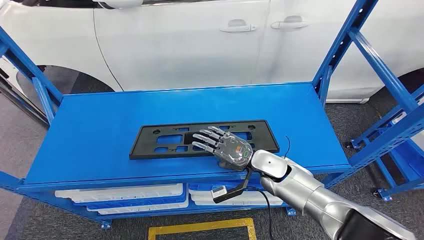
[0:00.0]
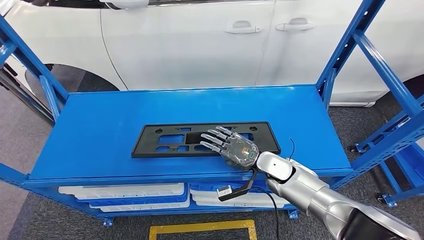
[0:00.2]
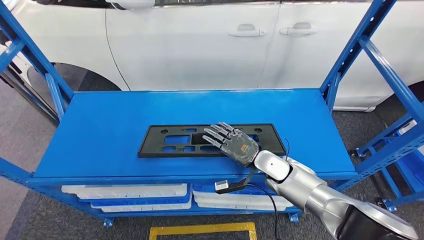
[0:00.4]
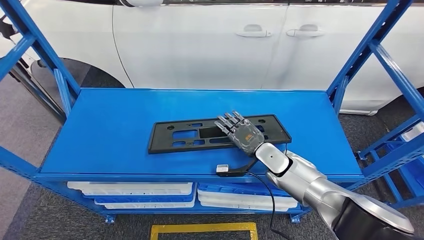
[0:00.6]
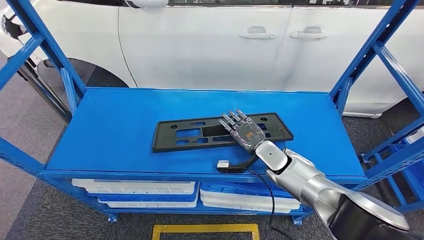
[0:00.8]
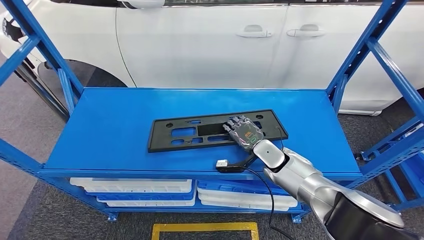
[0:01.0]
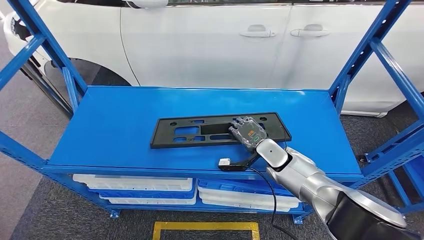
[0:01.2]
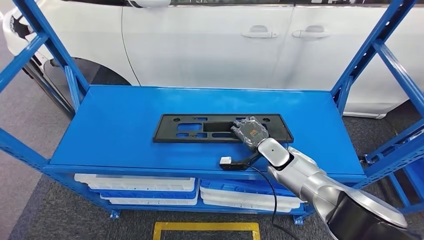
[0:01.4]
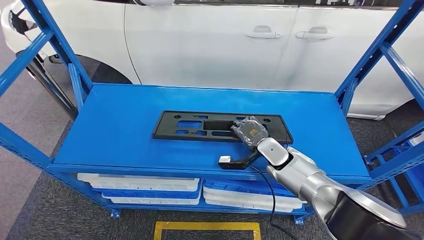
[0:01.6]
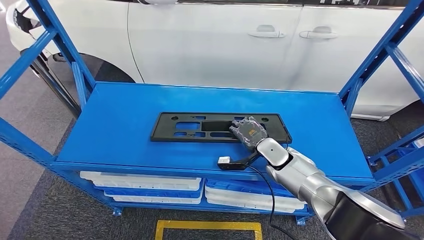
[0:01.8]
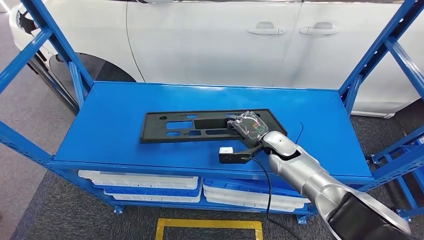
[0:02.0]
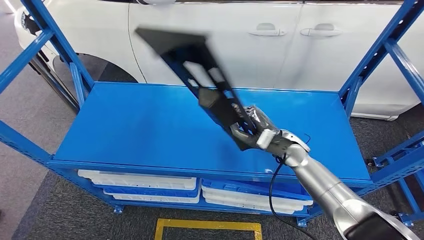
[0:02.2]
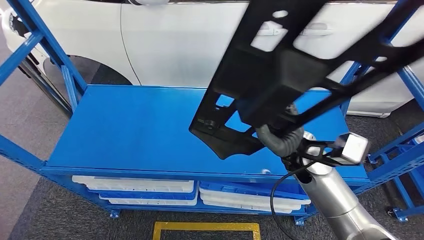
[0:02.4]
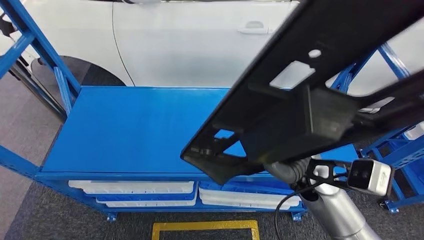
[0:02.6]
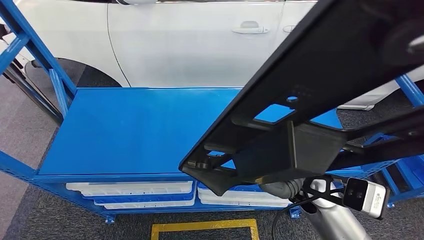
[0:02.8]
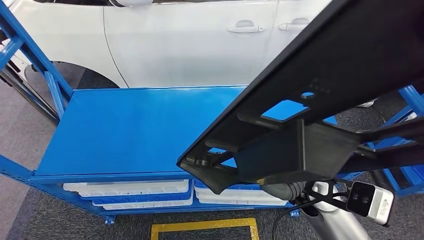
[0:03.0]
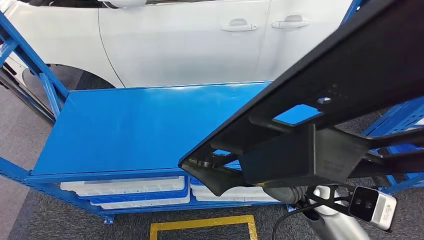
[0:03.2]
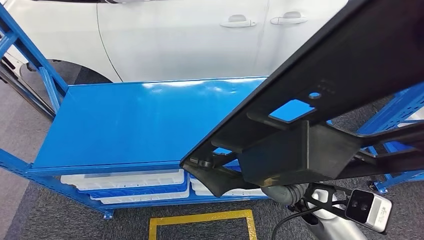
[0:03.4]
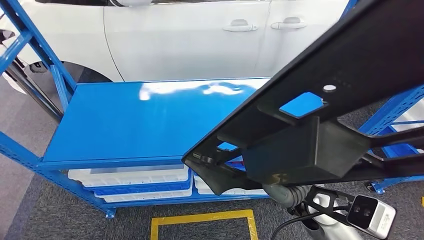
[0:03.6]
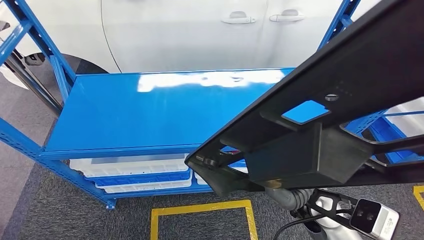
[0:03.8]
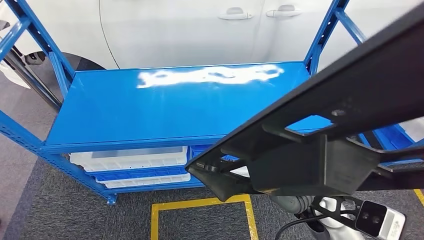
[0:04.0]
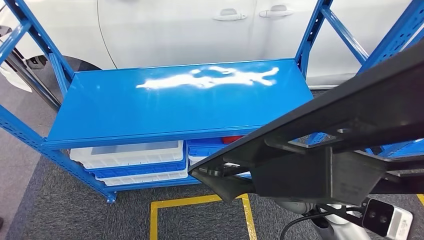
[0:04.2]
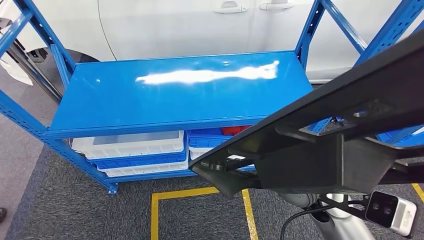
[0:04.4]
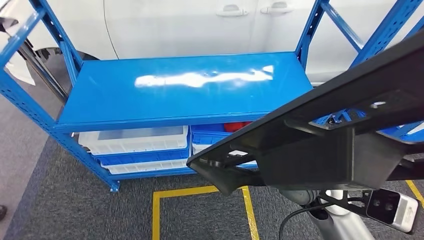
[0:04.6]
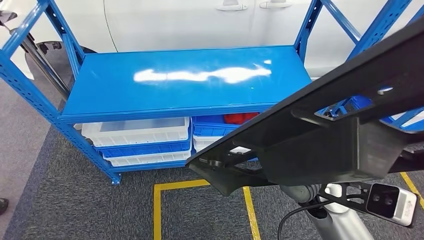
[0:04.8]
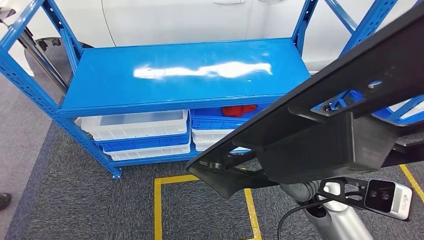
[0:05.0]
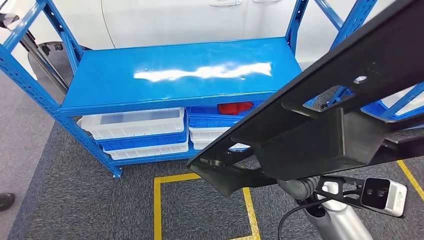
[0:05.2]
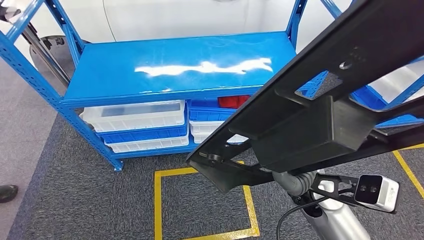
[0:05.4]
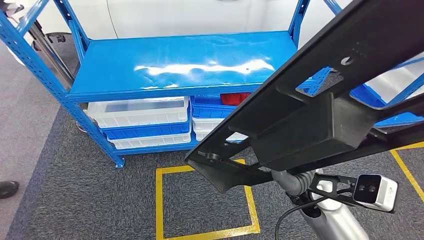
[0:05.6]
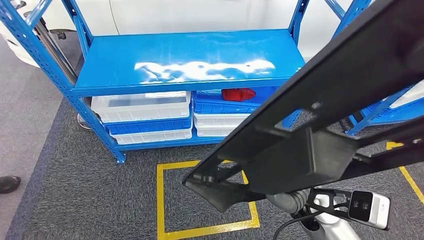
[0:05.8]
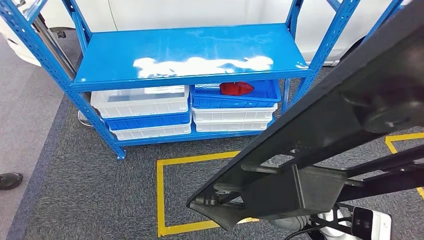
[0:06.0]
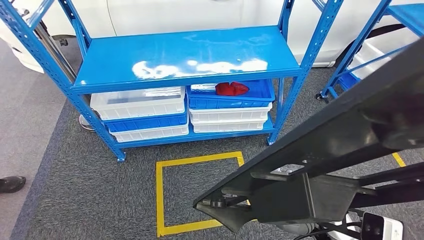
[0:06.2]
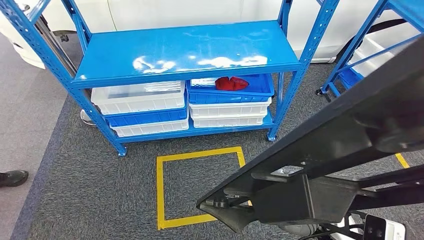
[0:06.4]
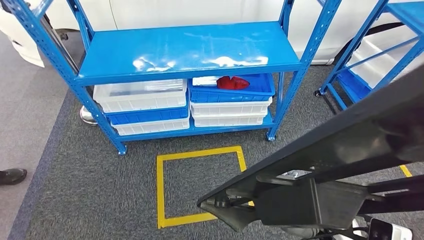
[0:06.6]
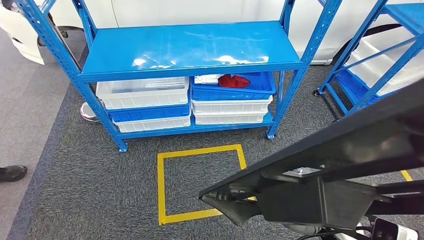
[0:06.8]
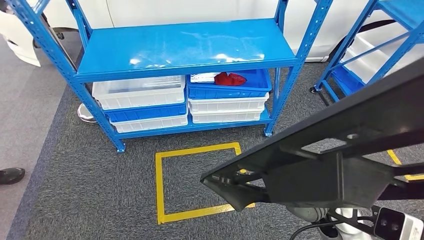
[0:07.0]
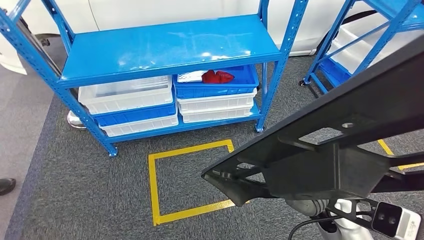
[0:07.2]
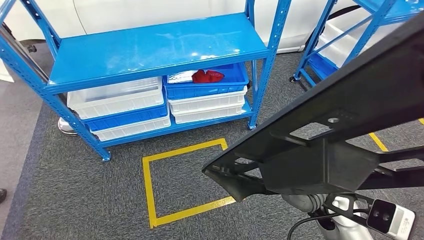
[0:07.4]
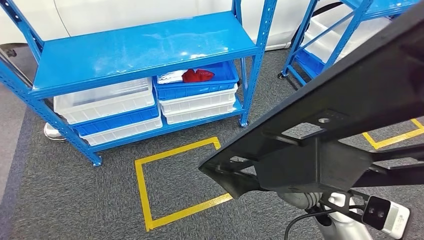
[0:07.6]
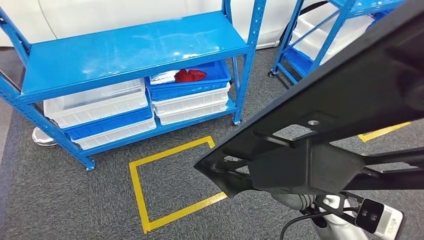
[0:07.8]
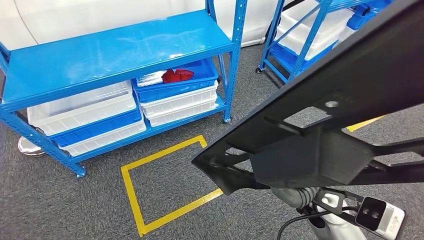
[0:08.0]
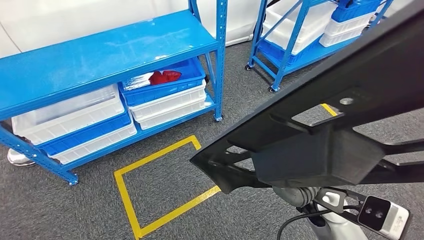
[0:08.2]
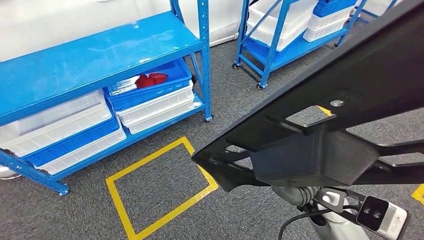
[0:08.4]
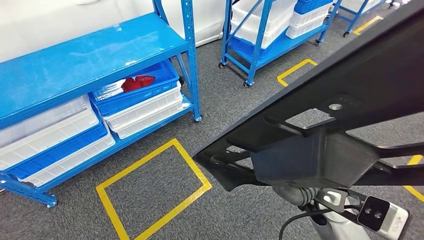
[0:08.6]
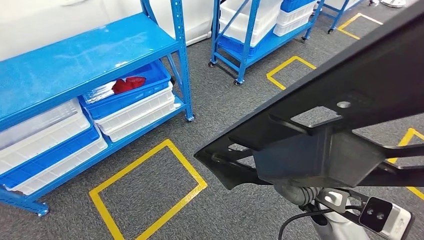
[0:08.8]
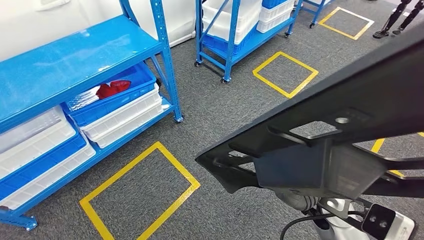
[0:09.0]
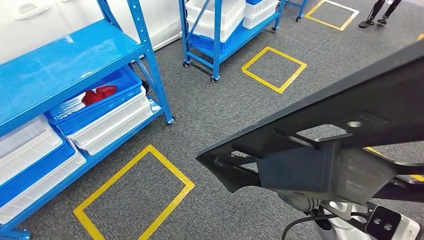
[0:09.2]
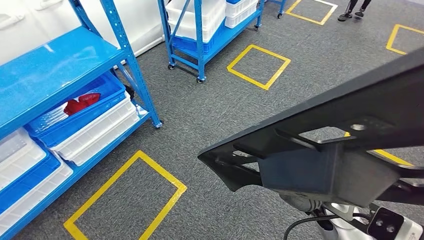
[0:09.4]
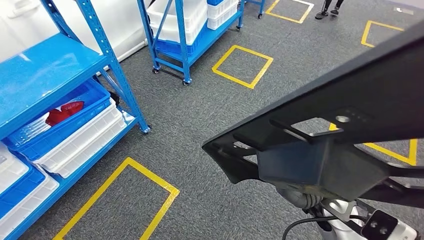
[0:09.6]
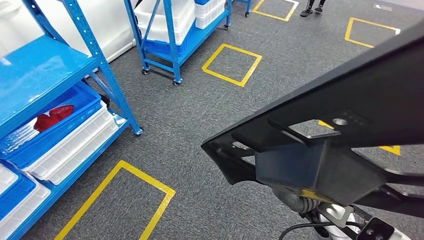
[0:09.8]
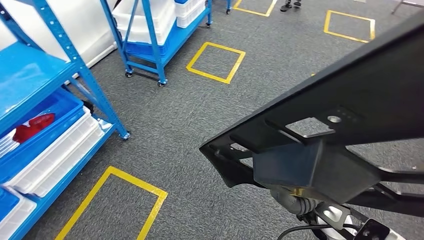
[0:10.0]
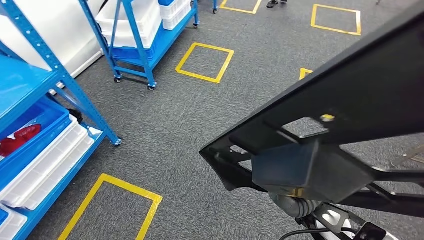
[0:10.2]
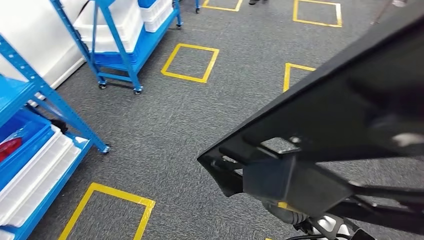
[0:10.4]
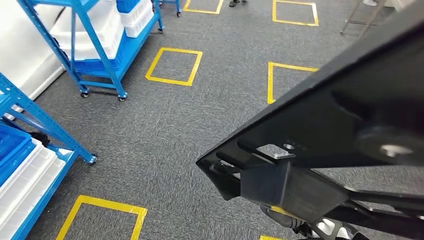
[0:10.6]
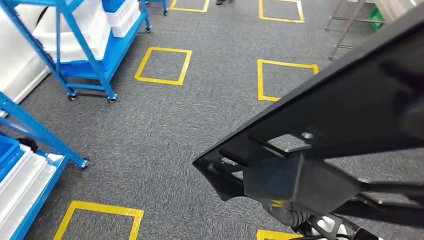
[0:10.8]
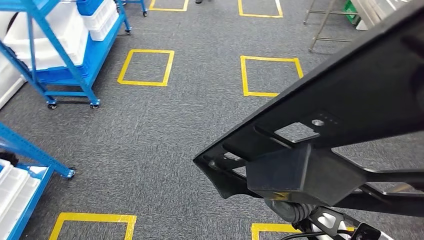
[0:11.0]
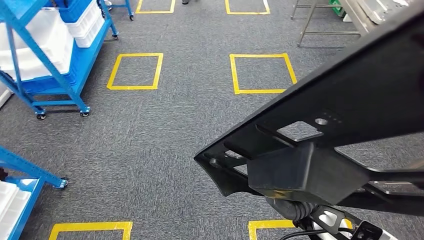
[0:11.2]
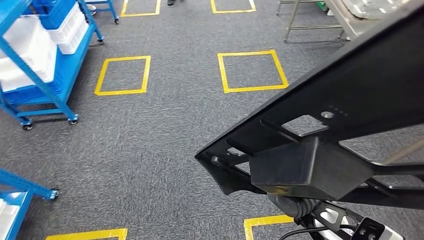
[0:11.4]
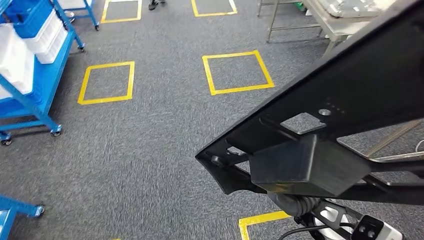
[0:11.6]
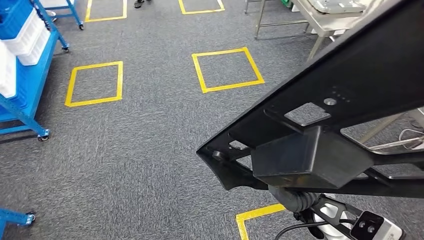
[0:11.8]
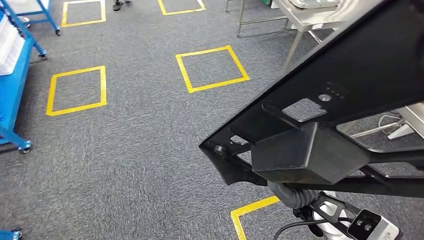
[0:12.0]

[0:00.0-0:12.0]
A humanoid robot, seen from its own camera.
Step, 0:00.0 to 0:05.4: Pick up the large material from the shelf.

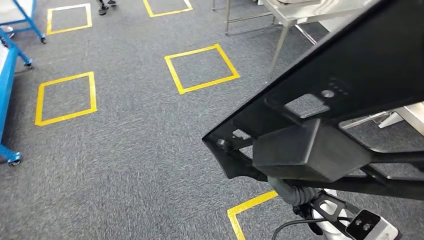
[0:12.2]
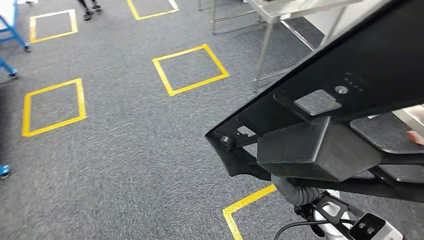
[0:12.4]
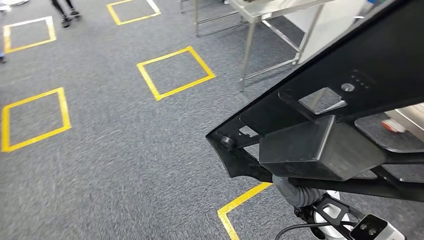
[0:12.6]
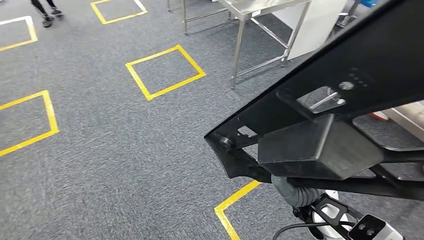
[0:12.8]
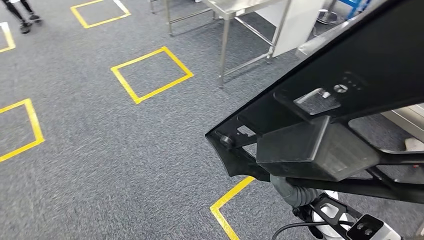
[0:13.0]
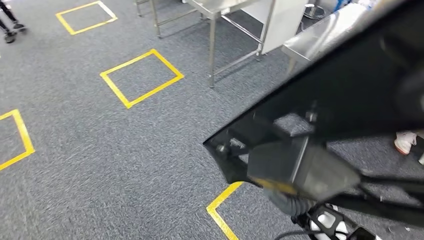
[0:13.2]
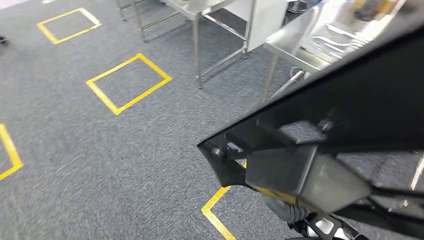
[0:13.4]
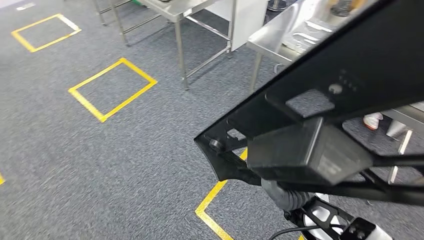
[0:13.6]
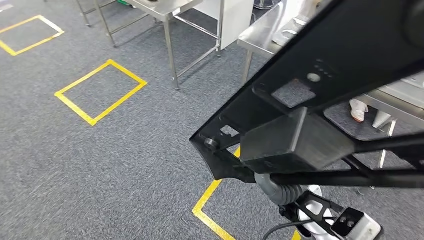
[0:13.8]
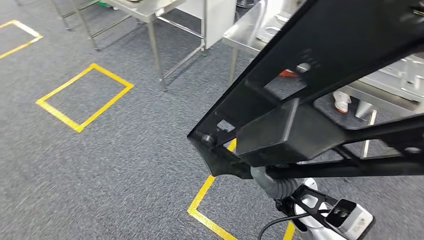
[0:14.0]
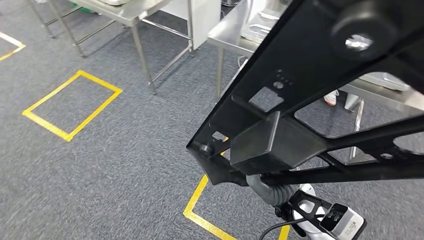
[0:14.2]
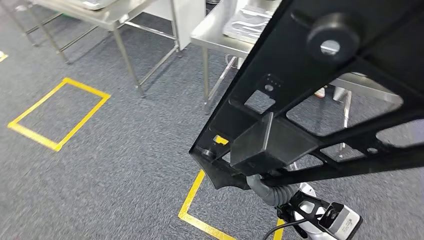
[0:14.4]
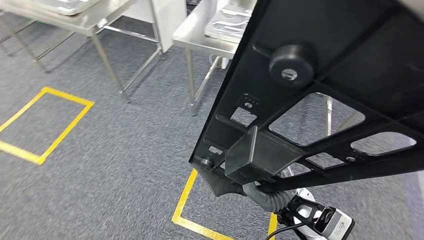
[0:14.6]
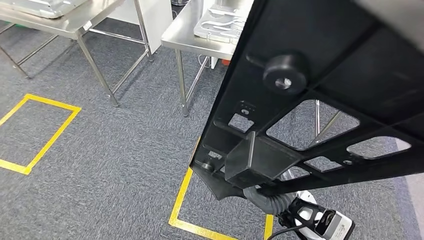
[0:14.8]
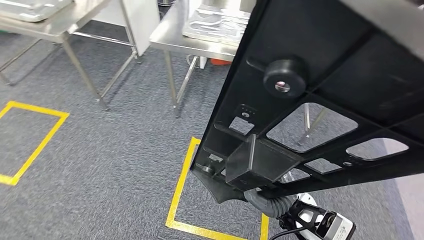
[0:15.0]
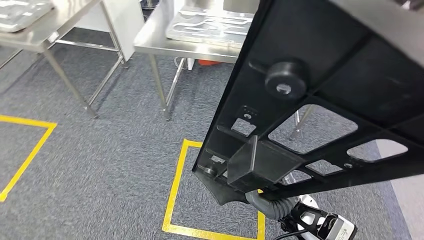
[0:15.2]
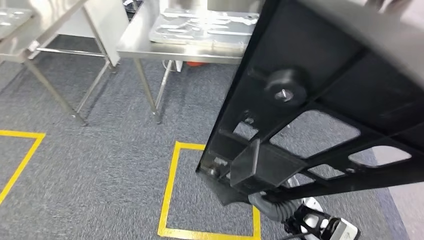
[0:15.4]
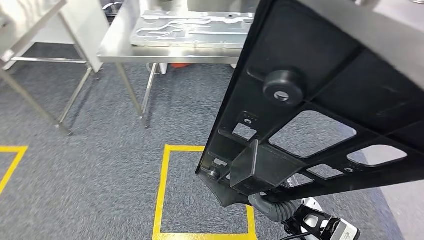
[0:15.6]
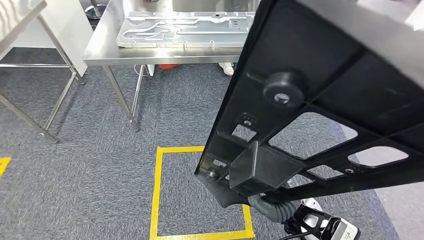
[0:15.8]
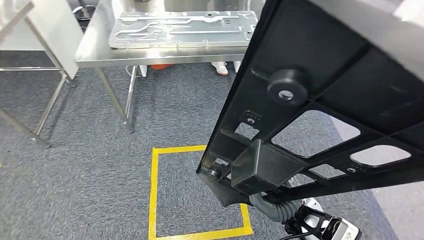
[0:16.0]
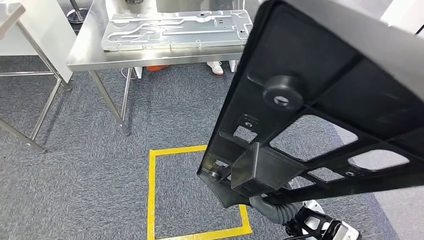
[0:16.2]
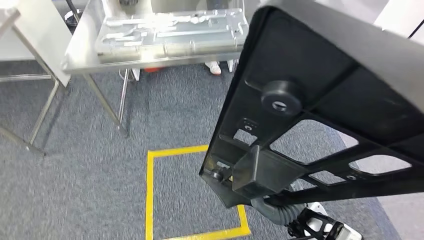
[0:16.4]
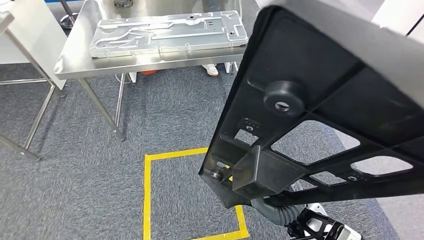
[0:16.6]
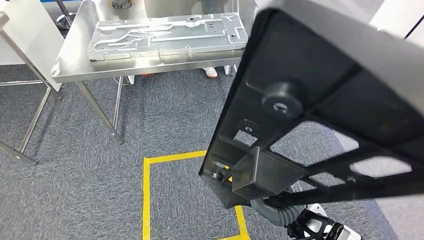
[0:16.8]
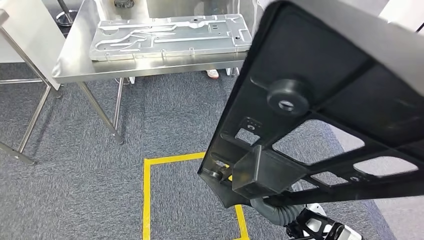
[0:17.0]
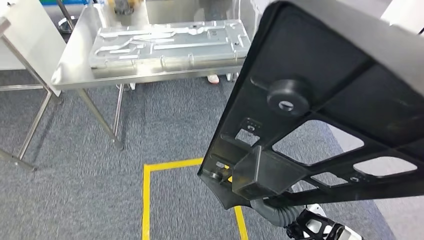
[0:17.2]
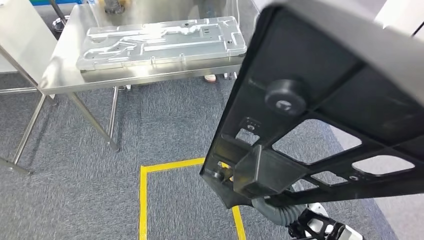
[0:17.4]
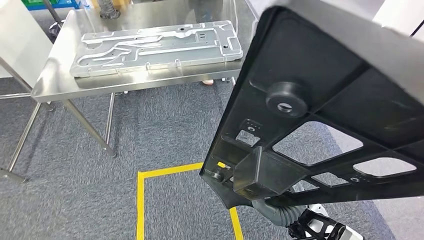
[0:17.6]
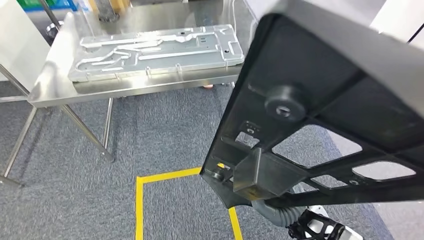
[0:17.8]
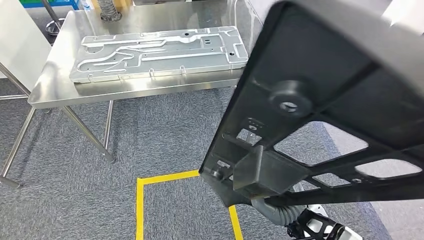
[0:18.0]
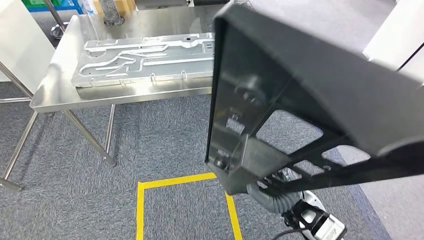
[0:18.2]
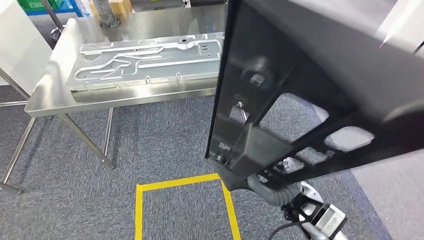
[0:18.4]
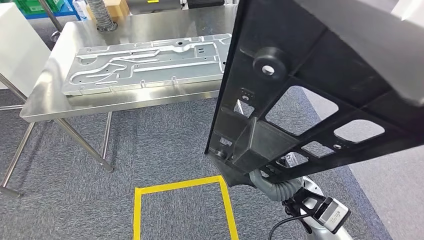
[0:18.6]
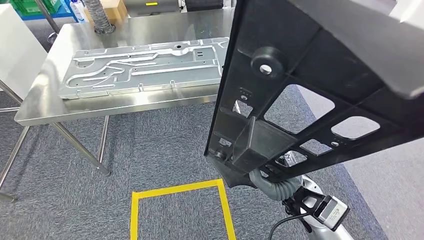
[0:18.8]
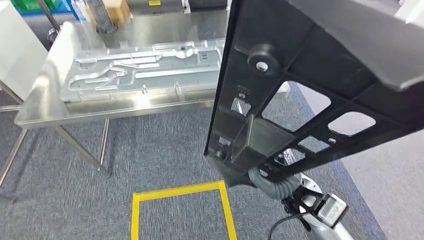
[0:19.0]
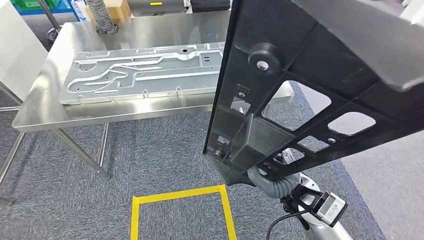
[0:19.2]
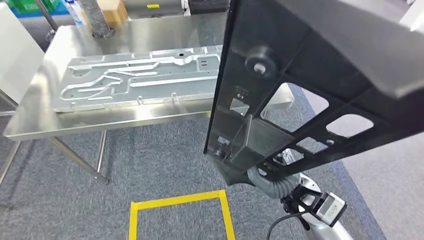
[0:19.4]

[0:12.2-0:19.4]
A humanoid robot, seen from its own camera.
Step, 0:12.2 to 0:18.4: Move the large material to the workbench.
